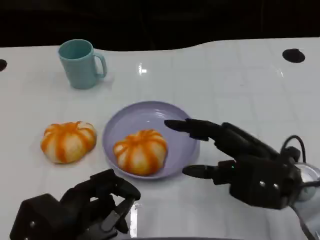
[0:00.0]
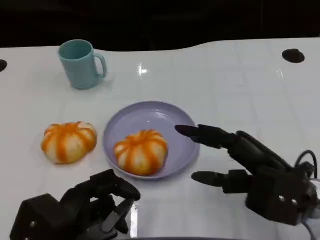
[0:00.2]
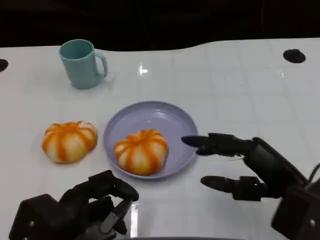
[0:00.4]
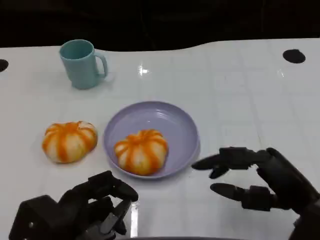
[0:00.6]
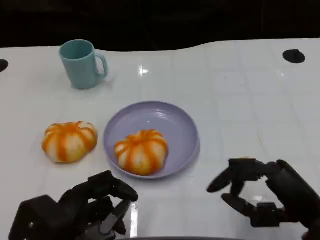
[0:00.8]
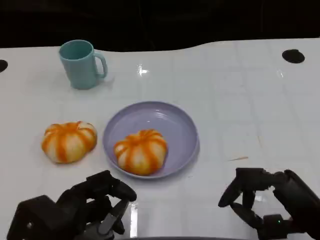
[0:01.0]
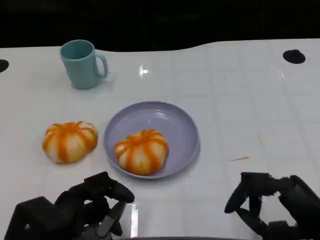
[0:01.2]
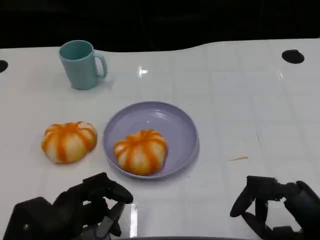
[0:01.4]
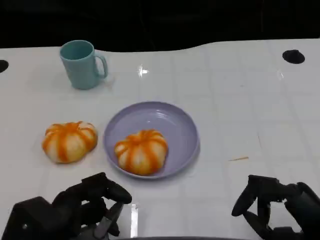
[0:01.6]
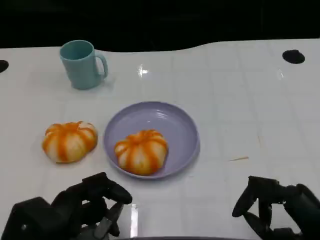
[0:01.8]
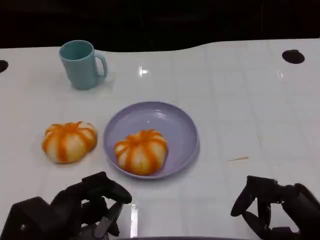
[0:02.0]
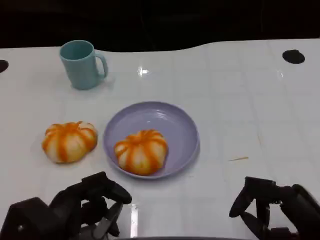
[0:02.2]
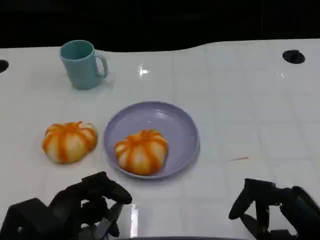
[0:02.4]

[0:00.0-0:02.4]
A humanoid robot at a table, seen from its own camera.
Task of the whole recording: Grasp the bread from the table and place it into the plate.
0:00.0 to 0:01.2: The right hand travels backward and to the right by approximately 10 cm.
0:01.2 to 0:02.4: The hands move only a little.

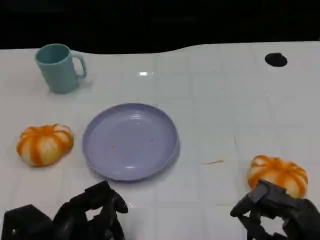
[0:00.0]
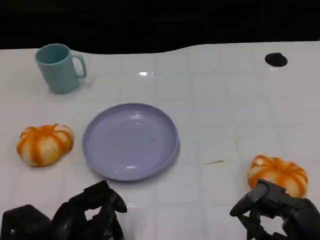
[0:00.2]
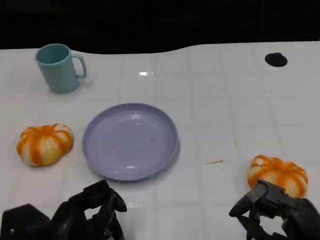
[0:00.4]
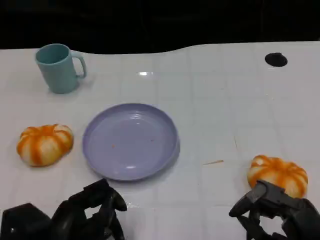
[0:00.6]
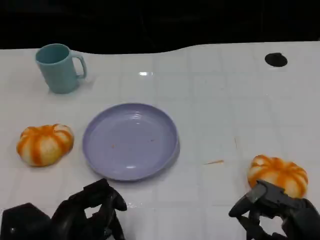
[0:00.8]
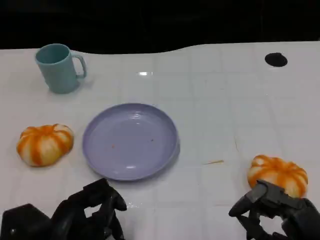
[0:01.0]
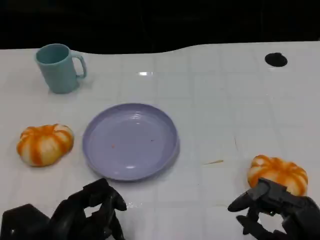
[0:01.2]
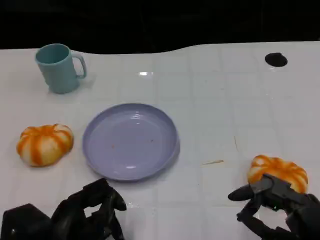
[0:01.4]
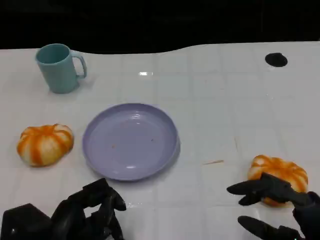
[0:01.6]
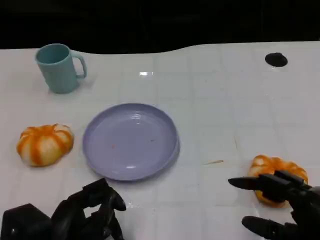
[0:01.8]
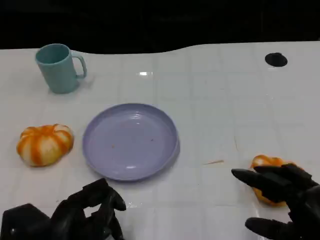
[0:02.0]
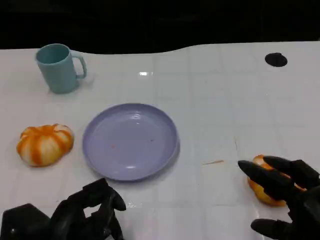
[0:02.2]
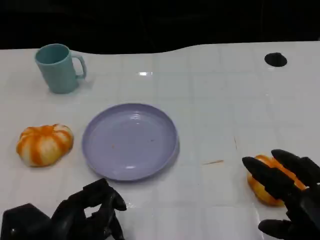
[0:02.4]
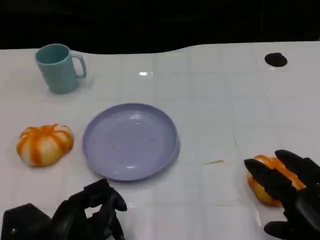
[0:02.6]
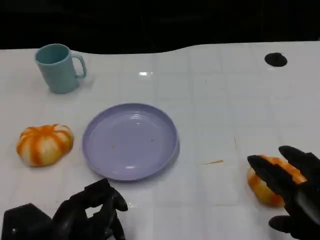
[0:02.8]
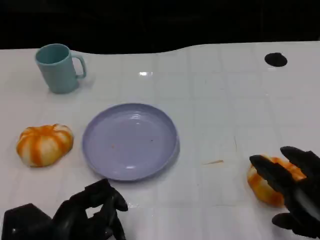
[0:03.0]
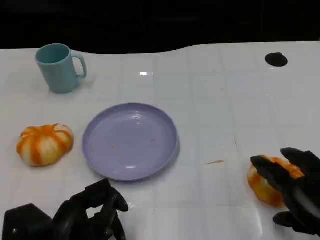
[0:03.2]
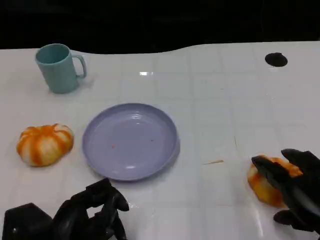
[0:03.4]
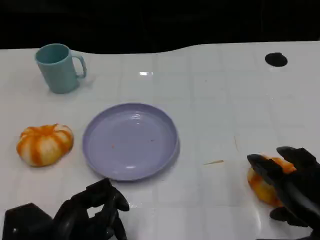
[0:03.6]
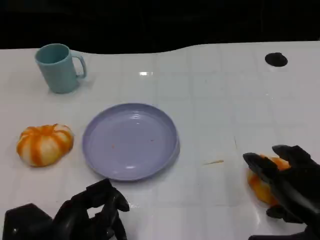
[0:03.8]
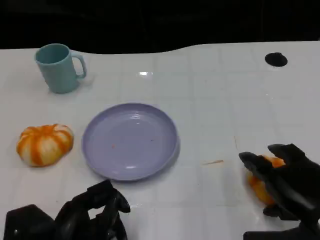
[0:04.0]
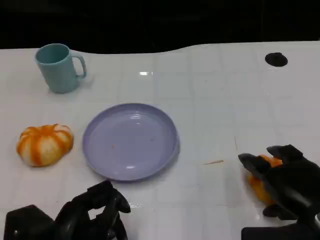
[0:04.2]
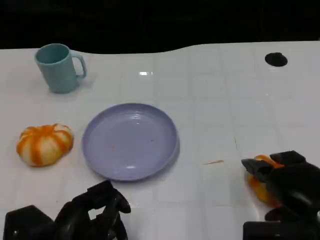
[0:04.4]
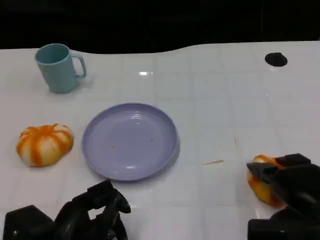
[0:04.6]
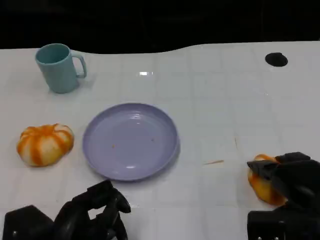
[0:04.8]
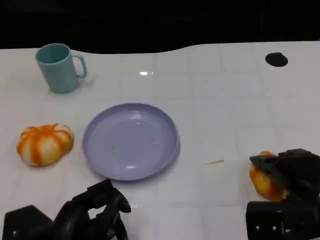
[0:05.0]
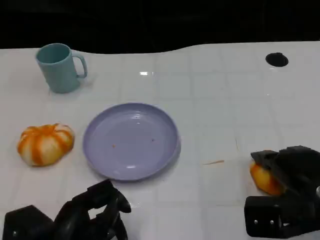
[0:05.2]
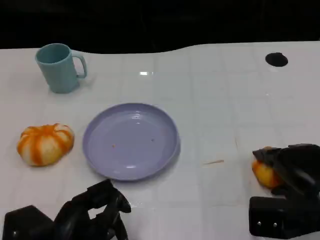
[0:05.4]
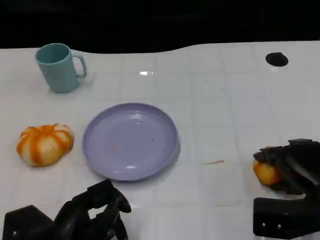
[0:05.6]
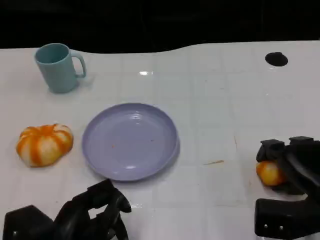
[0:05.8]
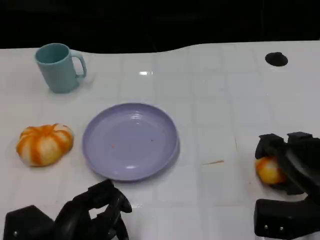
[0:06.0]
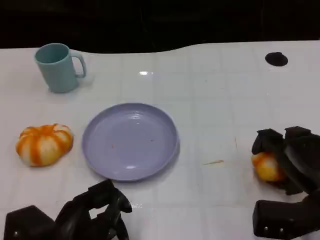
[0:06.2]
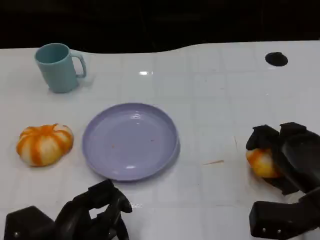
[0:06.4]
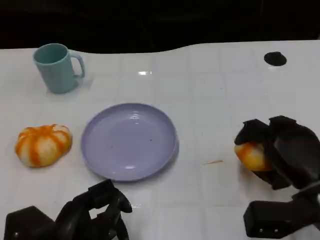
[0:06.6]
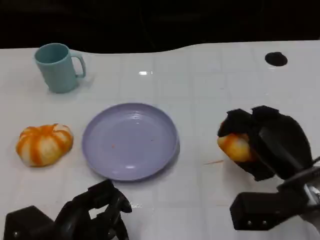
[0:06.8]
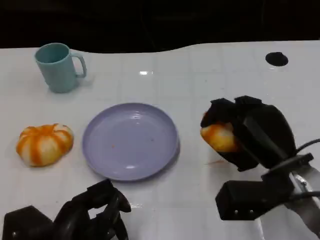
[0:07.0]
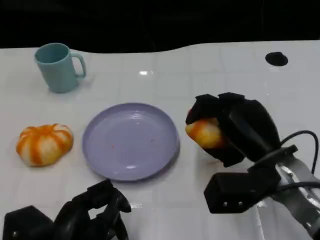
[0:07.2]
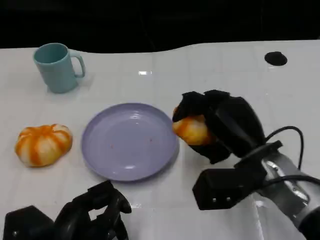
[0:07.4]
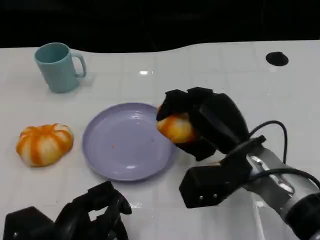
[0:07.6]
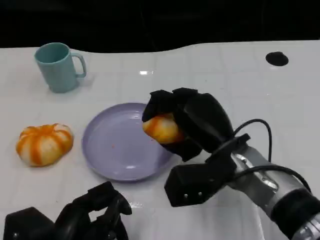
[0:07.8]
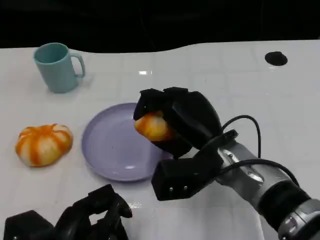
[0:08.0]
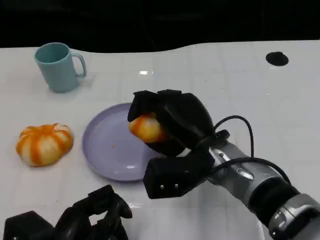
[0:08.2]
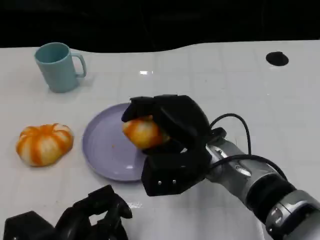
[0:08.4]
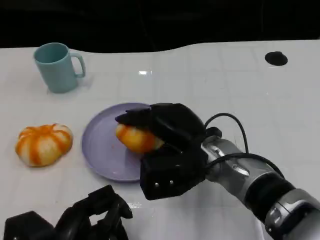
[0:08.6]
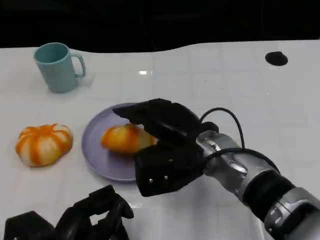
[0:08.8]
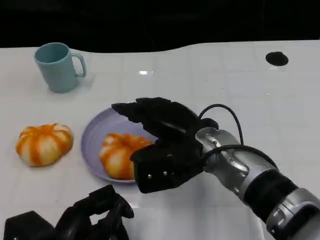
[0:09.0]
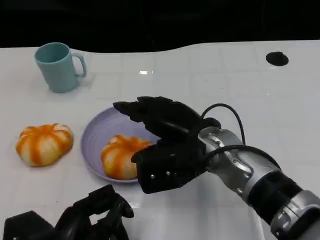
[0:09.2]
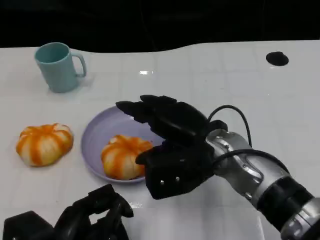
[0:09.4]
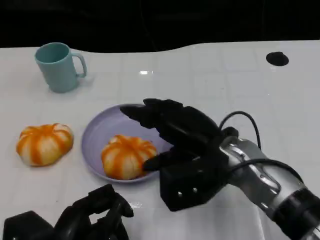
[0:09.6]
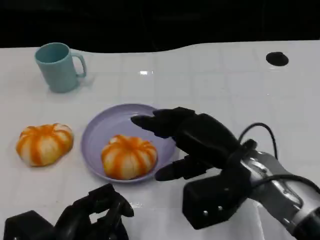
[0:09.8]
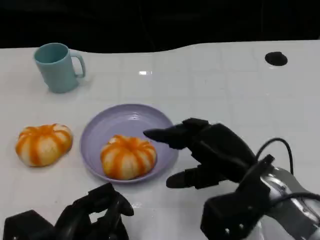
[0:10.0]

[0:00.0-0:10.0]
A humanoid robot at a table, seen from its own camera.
Task of the whole recording: Grasp the bread from the table and place it into the plate.
0:00.0 to 0:01.4: Both hands stay about where they are.
0:02.8 to 0:04.2: The right hand travels forward by some 5 cm.
0:04.2 to 0:05.8: The right hand shifts by approximately 5 cm.
0:05.8 to 0:07.2: The right hand heads to the left, covering some 10 cm.
0:07.2 to 0:08.6: The right hand travels to the left by roughly 10 cm.
0:08.6 to 0:10.0: The right hand goes some 10 cm to the right.

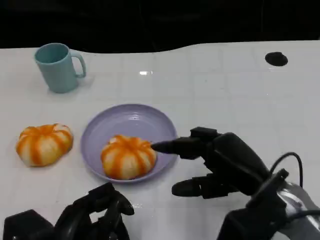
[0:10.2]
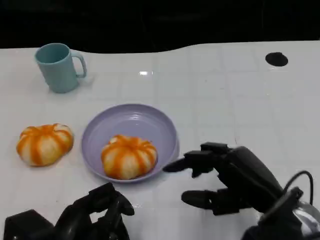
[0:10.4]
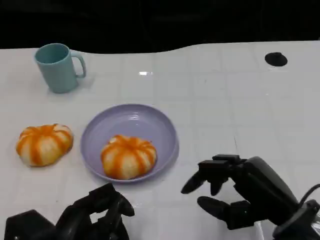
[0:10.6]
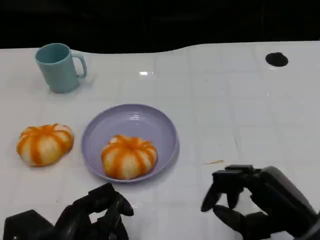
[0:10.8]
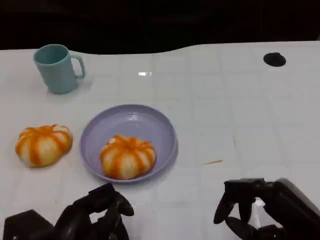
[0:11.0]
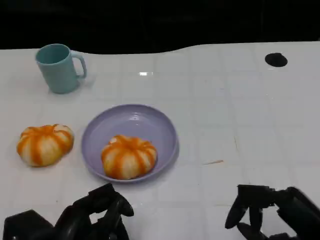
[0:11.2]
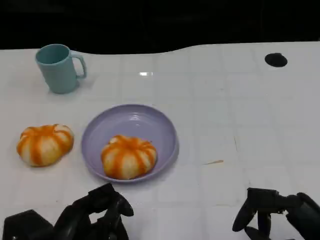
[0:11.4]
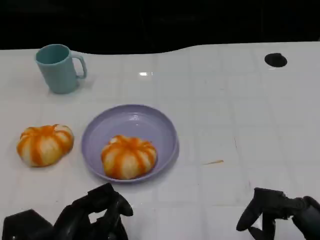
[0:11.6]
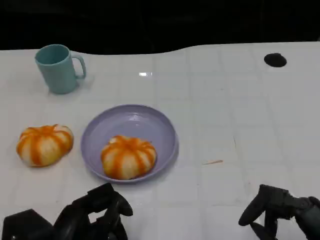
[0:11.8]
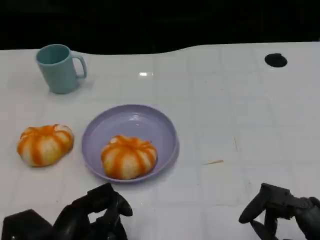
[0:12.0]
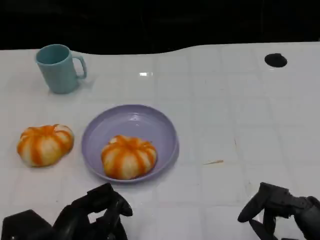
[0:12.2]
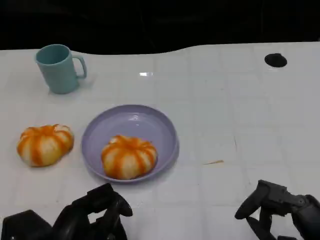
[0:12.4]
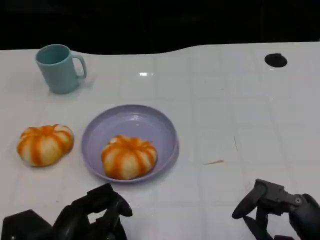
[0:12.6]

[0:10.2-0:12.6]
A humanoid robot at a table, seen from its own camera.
Task of the whole recording: Grasp the bread from the table and place it into the plate.
0:10.2 to 0:11.4: The right hand shifts about 10 cm backward and to the right.
0:11.4 to 0:12.6: There are only small adjustments of the hands.
